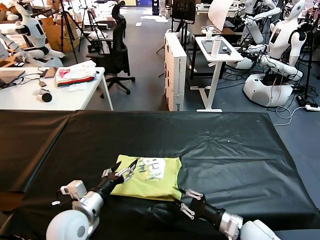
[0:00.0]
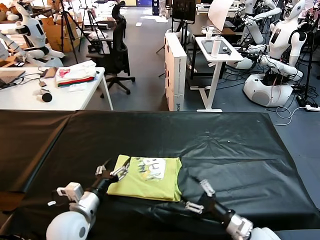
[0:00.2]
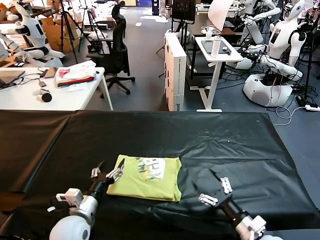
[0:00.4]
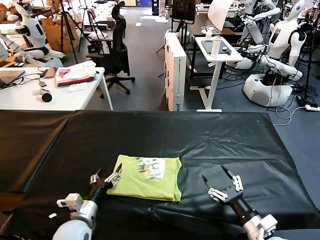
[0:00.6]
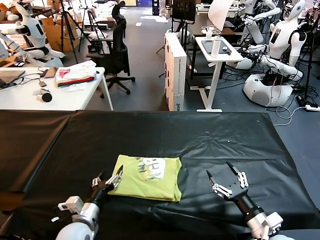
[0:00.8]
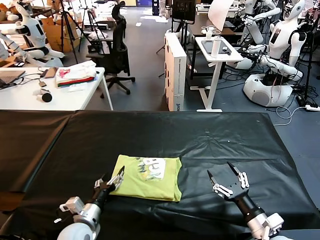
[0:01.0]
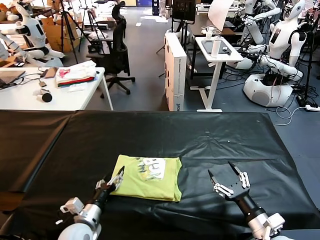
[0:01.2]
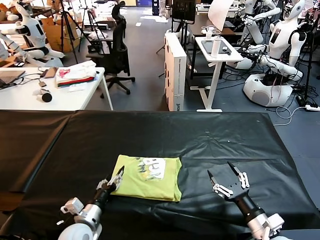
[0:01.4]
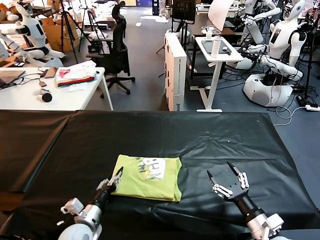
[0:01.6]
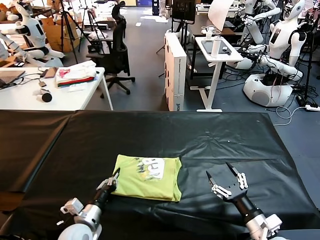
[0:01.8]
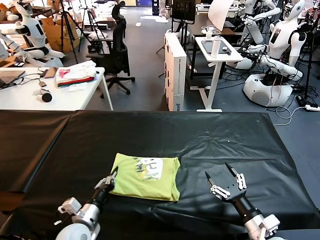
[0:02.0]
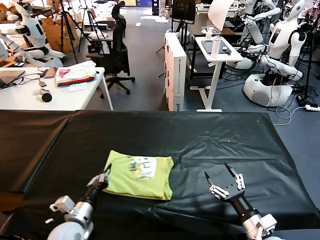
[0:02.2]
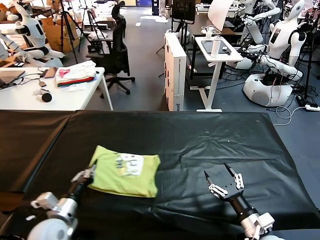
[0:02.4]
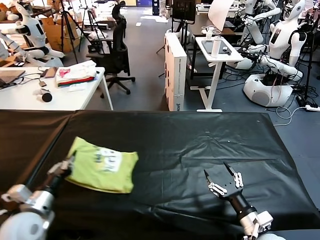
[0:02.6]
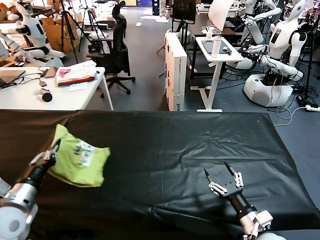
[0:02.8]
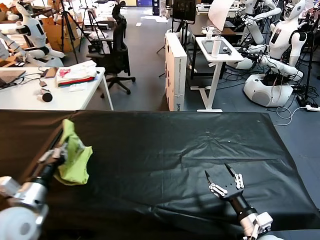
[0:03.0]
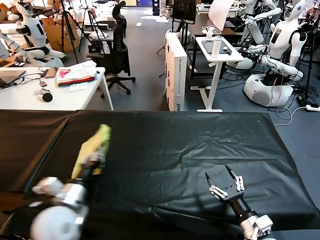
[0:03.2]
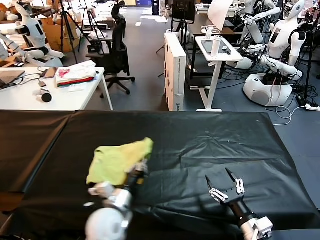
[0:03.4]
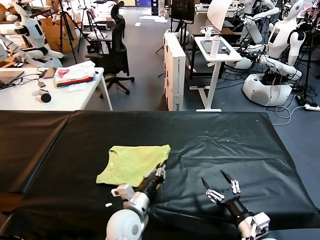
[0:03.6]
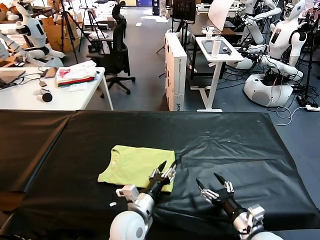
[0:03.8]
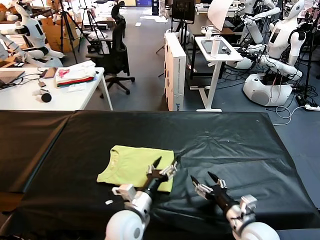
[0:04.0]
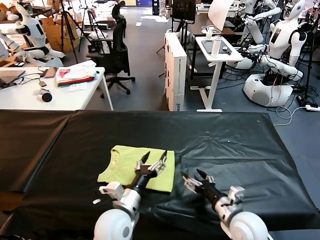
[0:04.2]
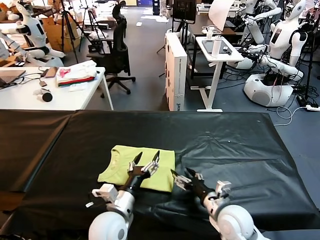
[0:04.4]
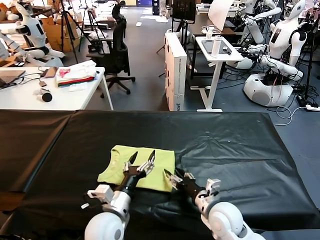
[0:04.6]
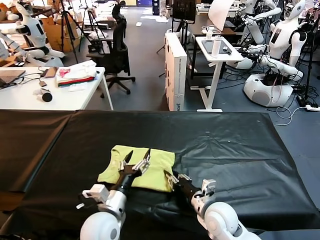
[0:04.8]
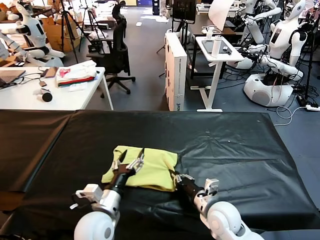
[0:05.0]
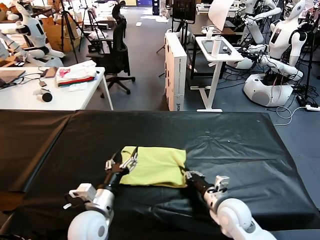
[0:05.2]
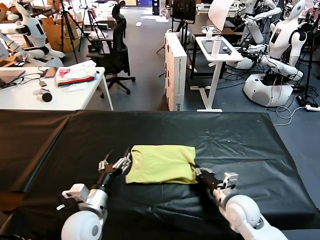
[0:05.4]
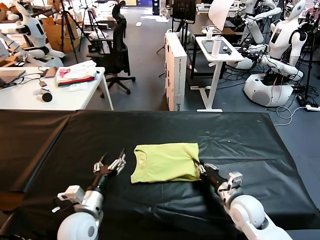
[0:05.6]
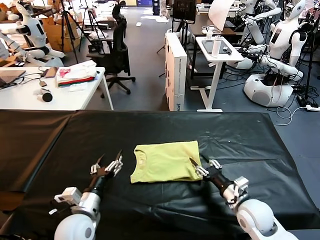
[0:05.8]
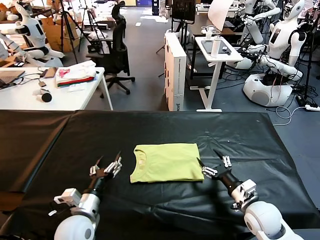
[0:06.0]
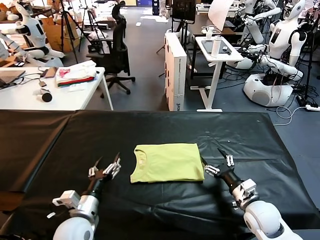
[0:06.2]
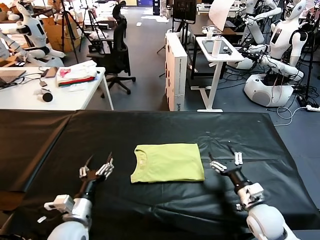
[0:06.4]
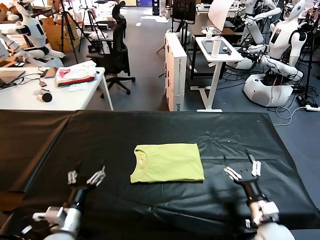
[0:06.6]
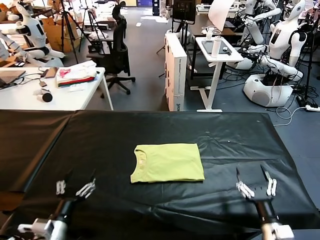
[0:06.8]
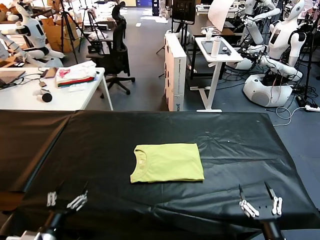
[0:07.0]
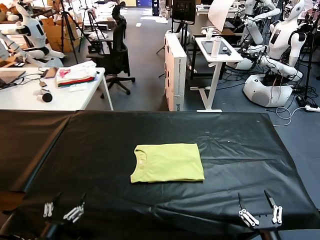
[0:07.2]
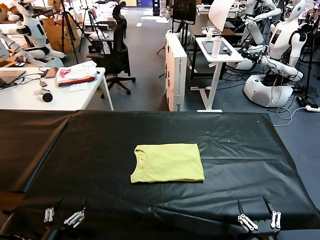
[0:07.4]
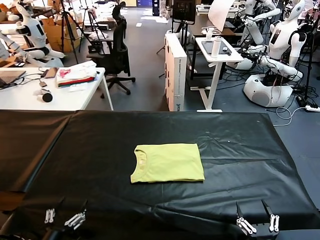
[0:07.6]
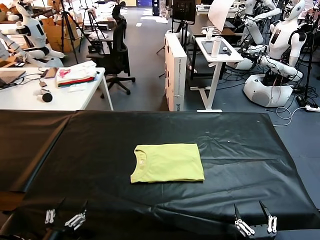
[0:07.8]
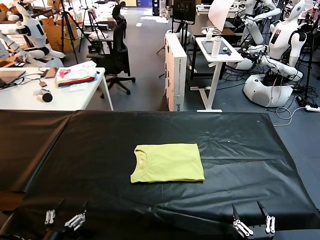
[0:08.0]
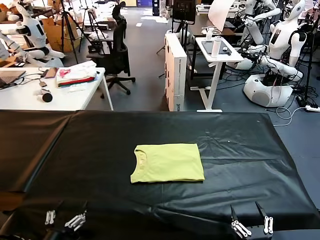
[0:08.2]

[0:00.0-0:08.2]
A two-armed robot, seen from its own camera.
Task of the whole recording: fold and organize the clothes.
Step, 0:00.0 to 0:03.8: Flip the folded clothes over with left gripper.
Step, 0:04.0 to 0:05.8: Drag the clothes to the center of the table.
0:00.0 to 0:01.6: The left gripper is displaced downward by roughly 10 cm, and closes its fingers, while the right gripper shifts by roughly 5 cm, and opens its fingers.
0:01.6 to 0:03.2: The left gripper is displaced upward by roughly 15 cm, and closes its fingers.
0:03.2 to 0:05.0: The right gripper travels to the left and forward by approximately 15 cm, and closes. Meanwhile the left gripper travels to the right and downward by about 10 cm, and opens its fingers.
0:05.0 to 0:06.6: The right gripper goes roughly 15 cm to the right, and opens; the left gripper travels to the left by roughly 10 cm.
0:06.6 to 0:08.2: The right gripper heads backward, covering some 15 cm. Meanwhile the left gripper moves backward and to the left, some 15 cm.
